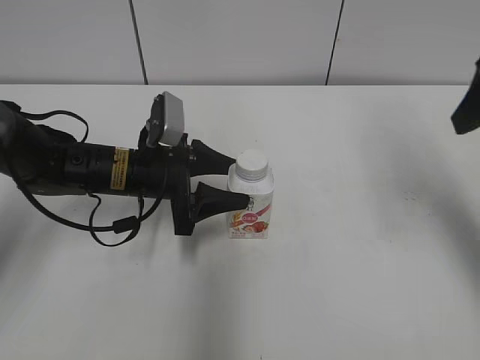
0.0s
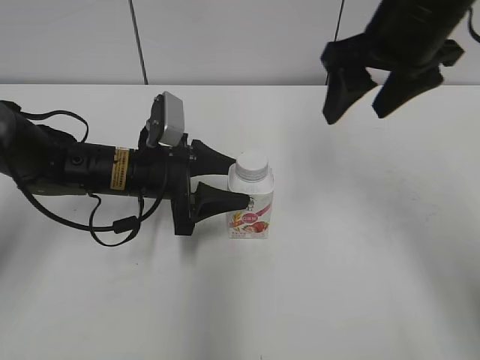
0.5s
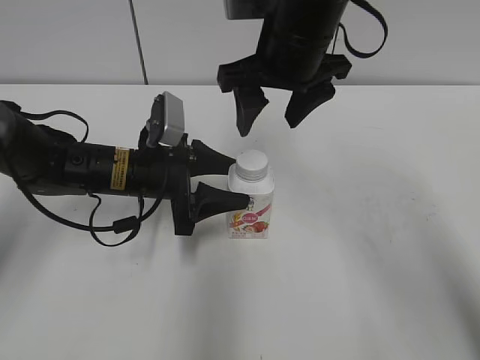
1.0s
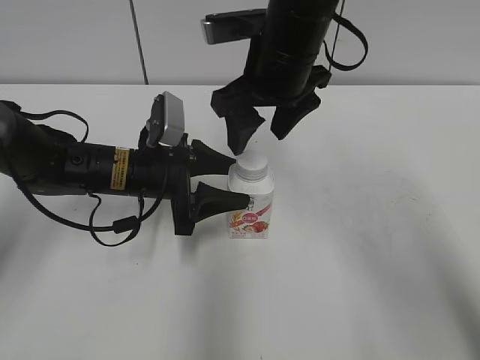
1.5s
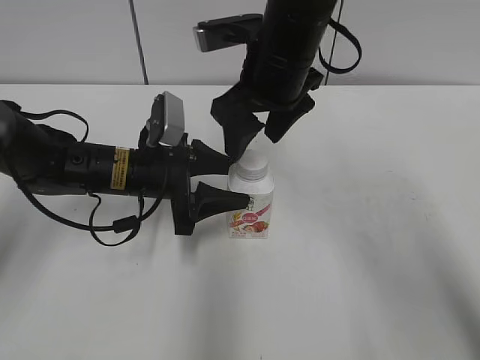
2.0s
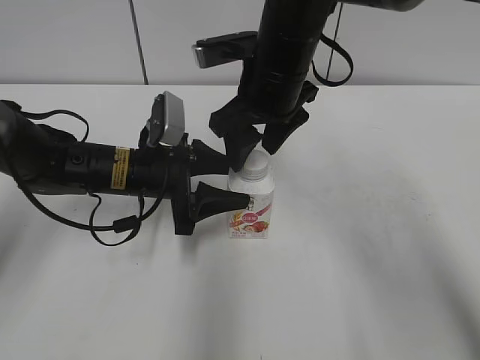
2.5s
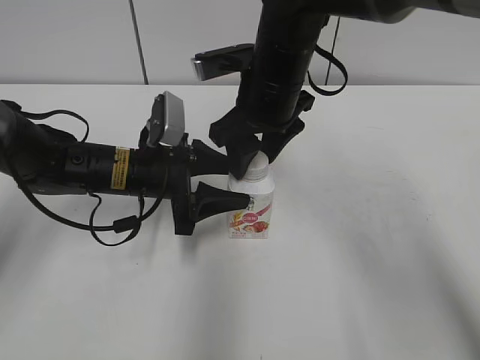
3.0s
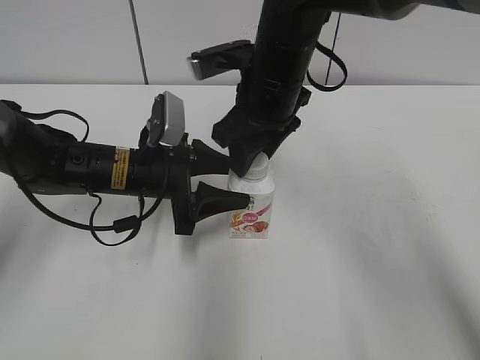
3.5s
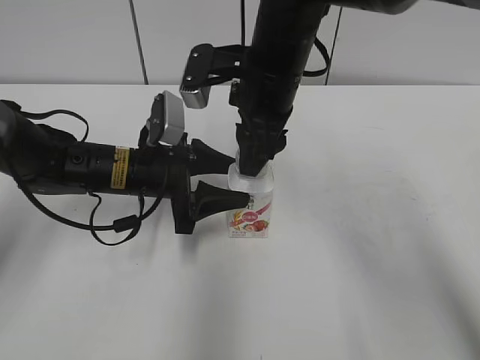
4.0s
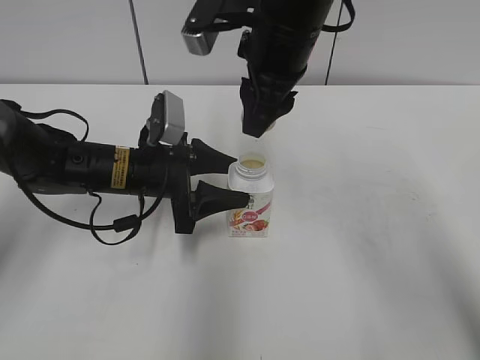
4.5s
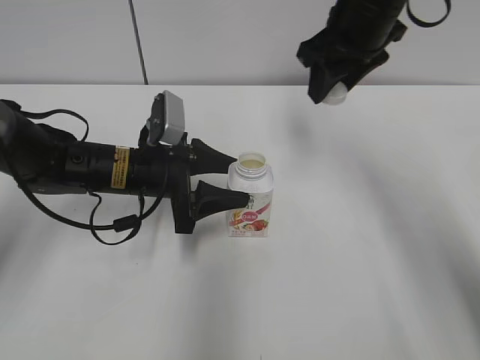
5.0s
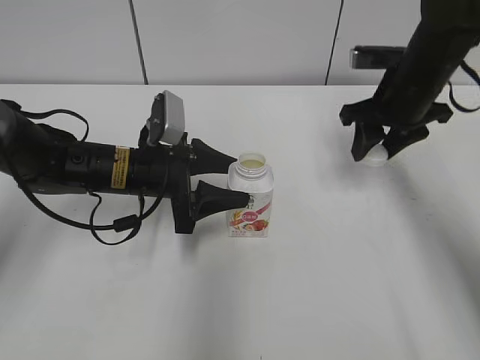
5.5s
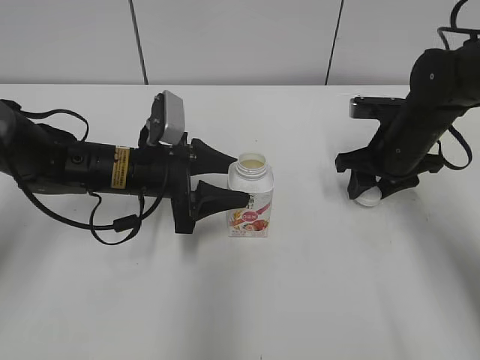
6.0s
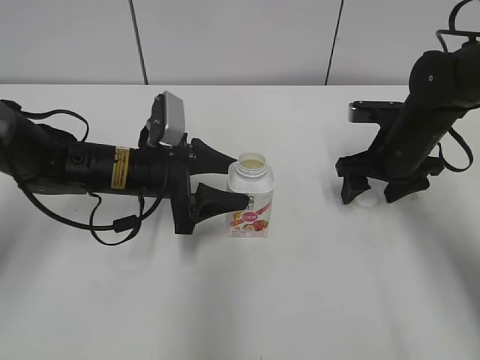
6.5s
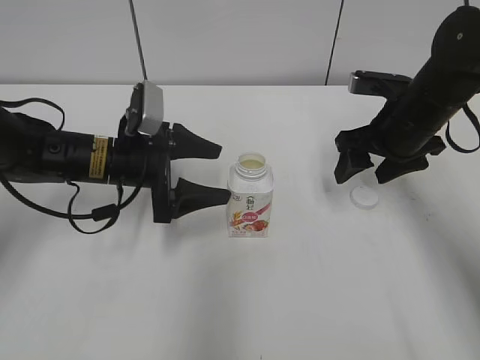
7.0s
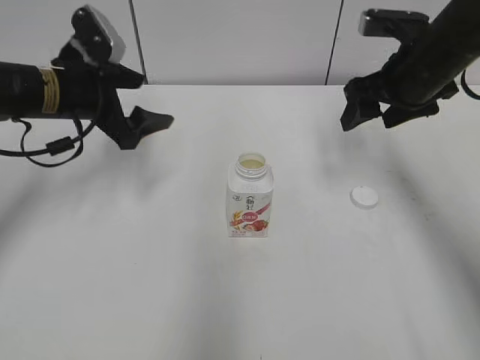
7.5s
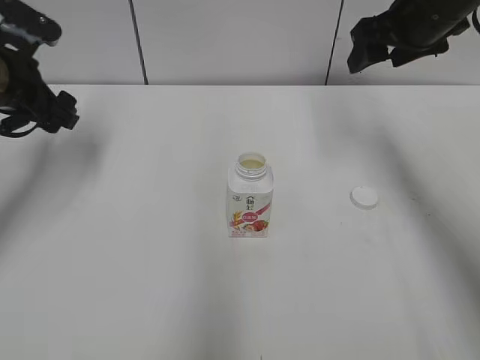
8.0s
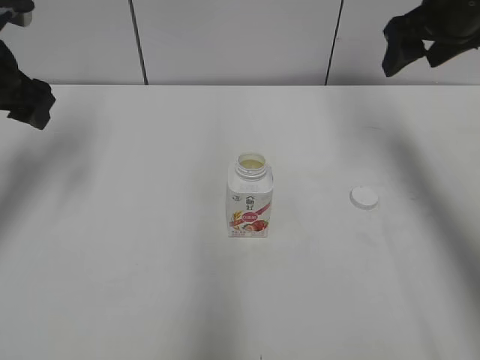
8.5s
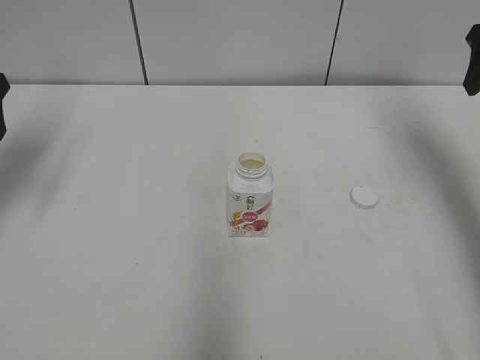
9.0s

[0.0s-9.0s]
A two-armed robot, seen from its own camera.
Step, 4.5s to 6.0s: Place the bottle cap on the right.
0.0s to 2.0s: The right gripper heads to the left and forward, covering about 25 cm.
2.0s to 4.5s: The right gripper closes.
4.5s to 7.0s: The right gripper moves to the right and downward, approximately 20 cm, and opens. Meanwhile the left gripper opens its fingers.
7.0s to 9.0s: The left gripper is displaced upward and to the left by roughly 25 cm; the right gripper shifts about 15 cm upward and to the right.

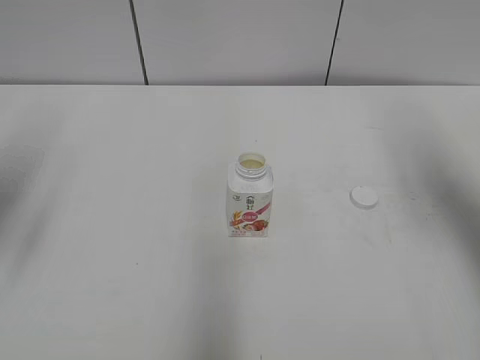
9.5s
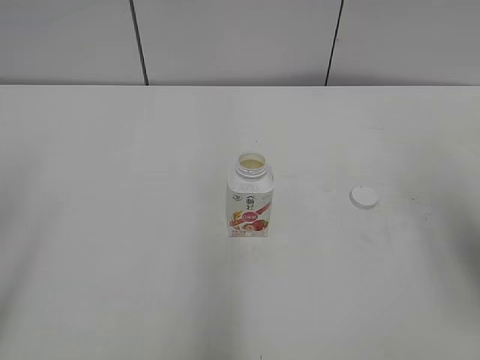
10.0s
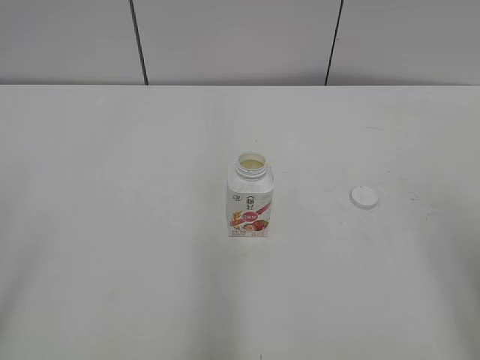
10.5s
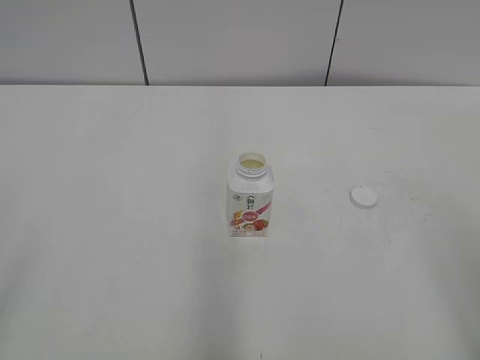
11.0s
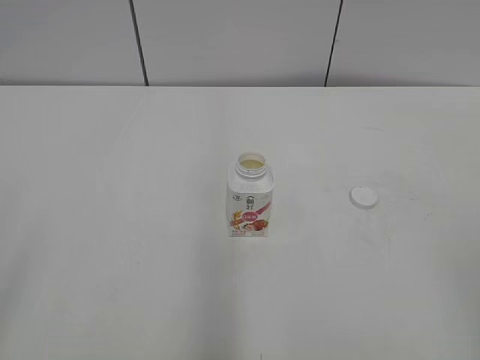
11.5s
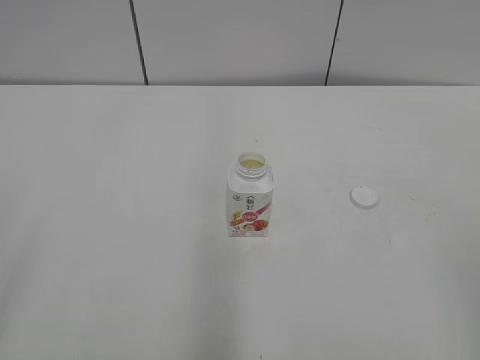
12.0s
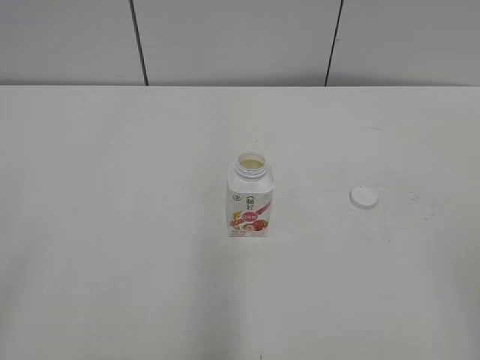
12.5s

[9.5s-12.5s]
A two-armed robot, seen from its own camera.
9.5s to 11.0s: The right gripper heads backward, covering some 25 cm.
